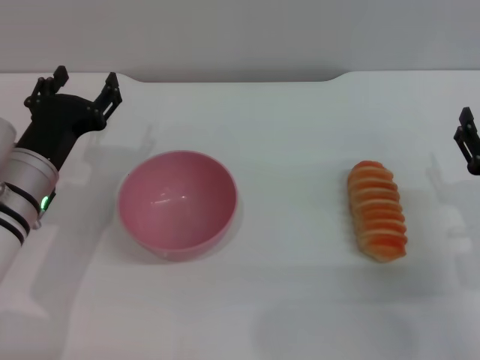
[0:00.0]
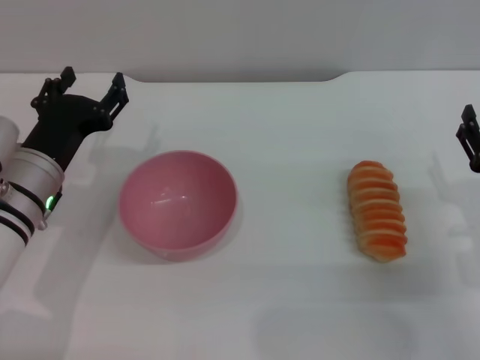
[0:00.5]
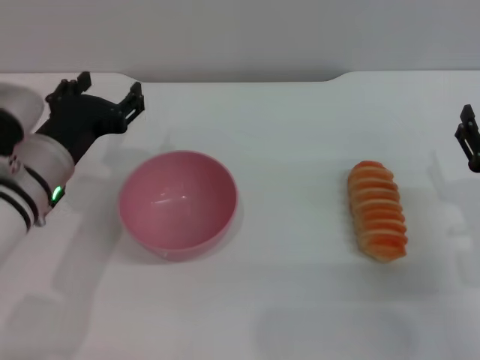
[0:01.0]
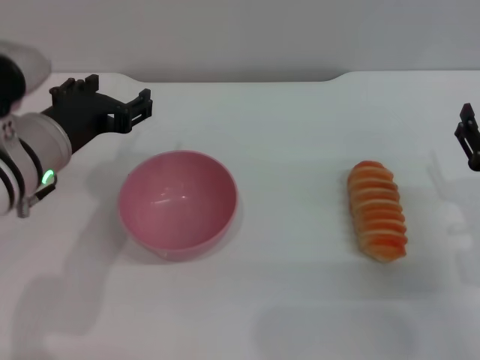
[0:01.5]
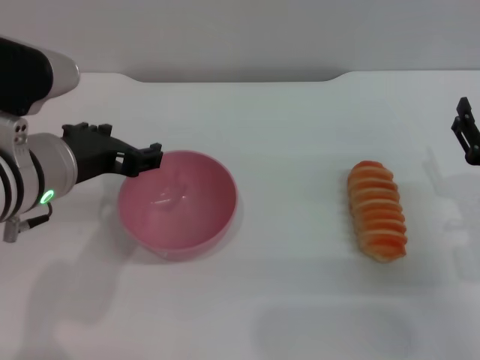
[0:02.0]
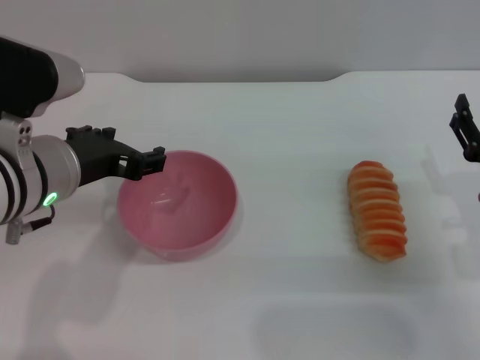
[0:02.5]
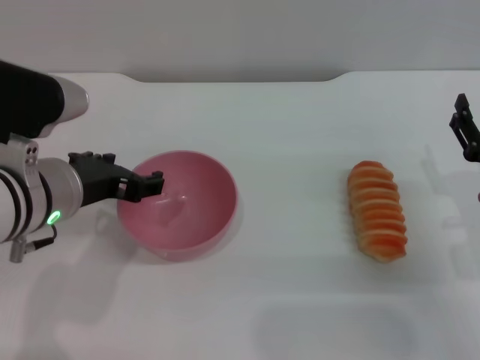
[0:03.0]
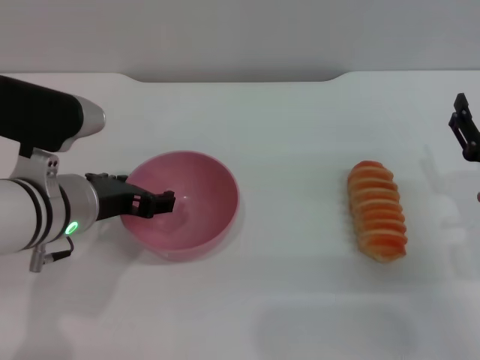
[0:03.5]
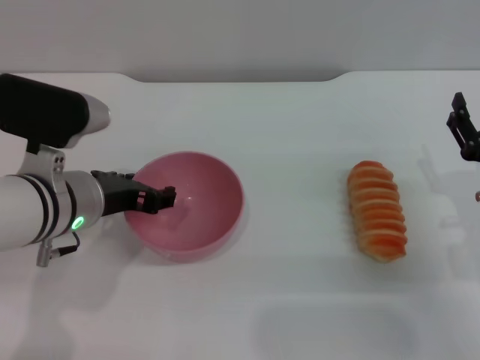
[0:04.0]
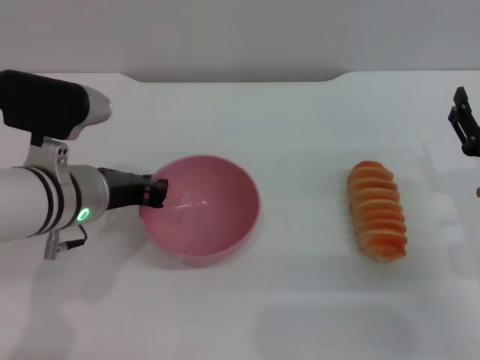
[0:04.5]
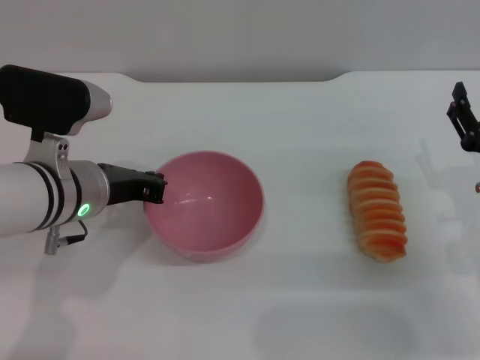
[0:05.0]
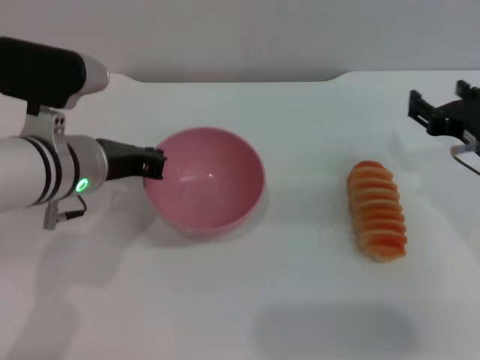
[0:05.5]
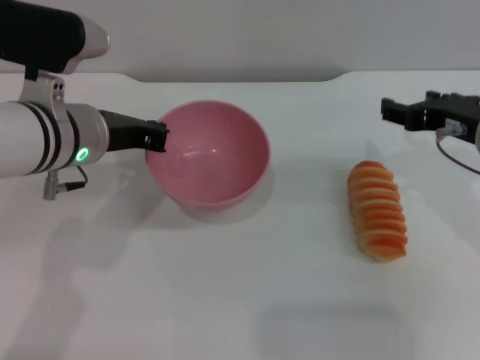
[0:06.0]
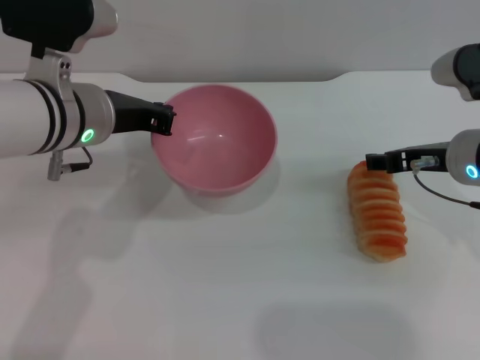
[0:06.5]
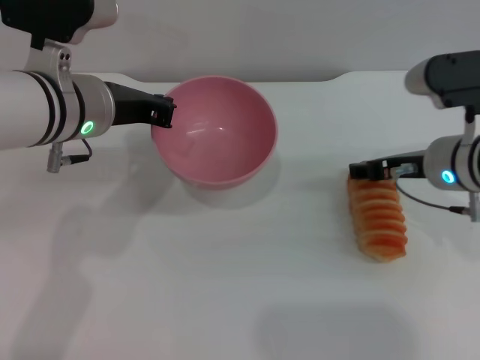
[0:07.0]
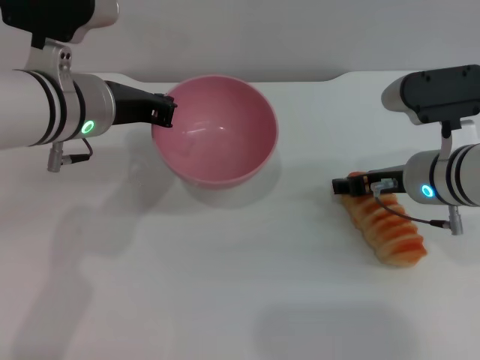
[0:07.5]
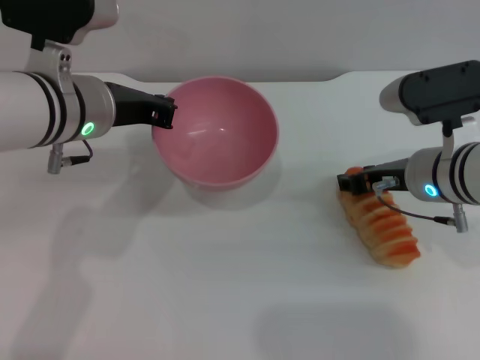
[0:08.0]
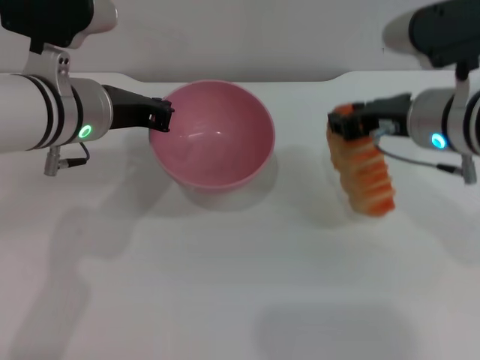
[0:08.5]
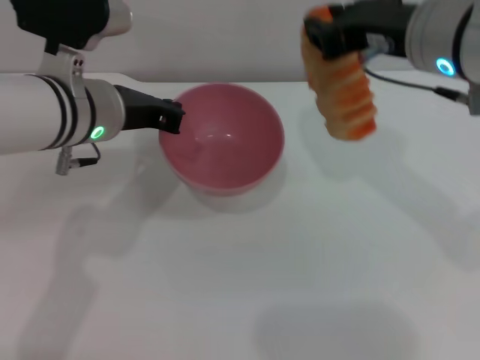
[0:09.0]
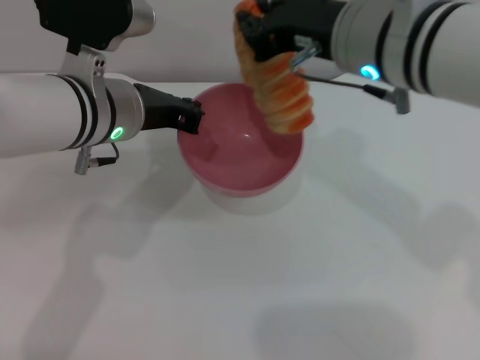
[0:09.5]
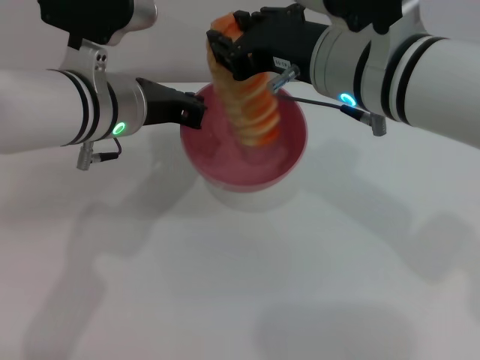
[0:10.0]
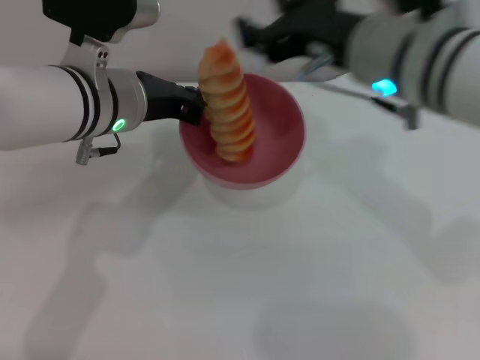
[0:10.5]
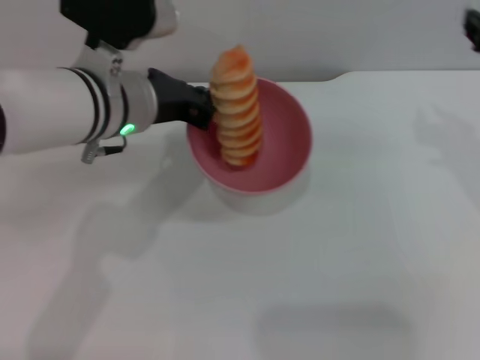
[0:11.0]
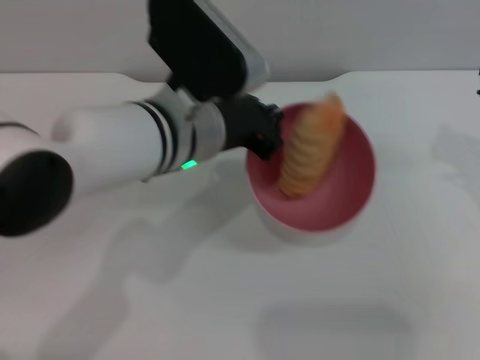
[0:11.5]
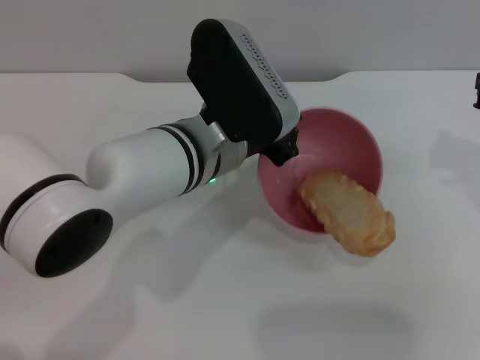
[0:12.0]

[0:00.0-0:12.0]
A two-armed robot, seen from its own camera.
Task of the whole recording: put the bread into the pink bowl and pour it out repeatedly.
Step, 0:00.0 to 0:06.0: Pick up the bowl with the left gripper.
Step, 0:06.5 to 0:08.5: Pick up the bread with the right gripper.
Step, 0:09.0 to 0:11.5: Place the bread into the bowl.
0:00.0 to 0:02.0: The left gripper heads upward, covering roughly 10 cm.
0:02.0 to 0:04.0: The left gripper travels downward by approximately 5 cm.
0:04.0 to 0:06.0: The right gripper moves upward and forward, some 10 cm. Meanwhile the left gripper moves some 5 cm, and closes up.
0:06.0 to 0:08.0: The right gripper travels downward by roughly 5 cm.
0:08.0 to 0:10.0: The right gripper goes roughly 15 cm upward and to the left, and closes up.
0:10.0 to 0:12.0: The right gripper moves to the right, approximately 20 cm, and opens, then closes again. Meanwhile the left gripper moves to the right, approximately 10 cm.

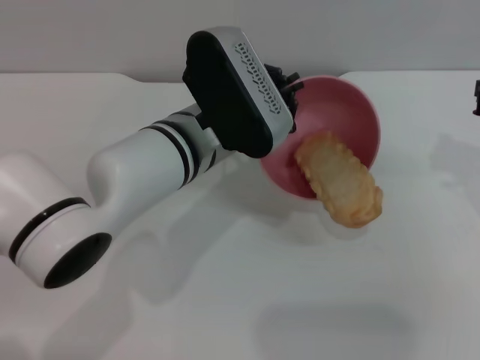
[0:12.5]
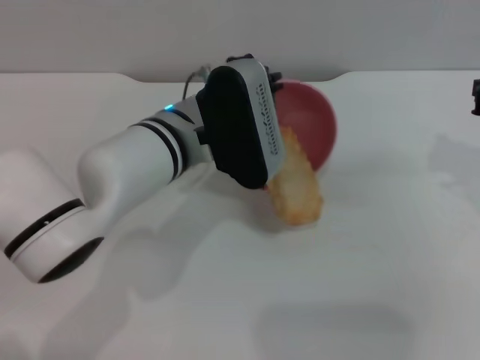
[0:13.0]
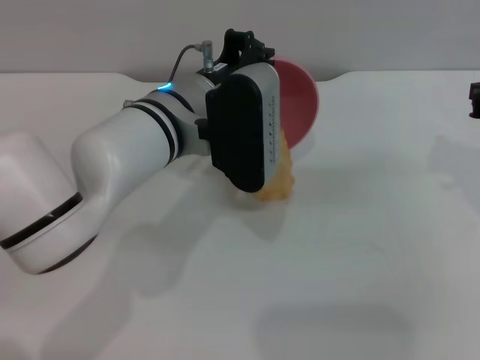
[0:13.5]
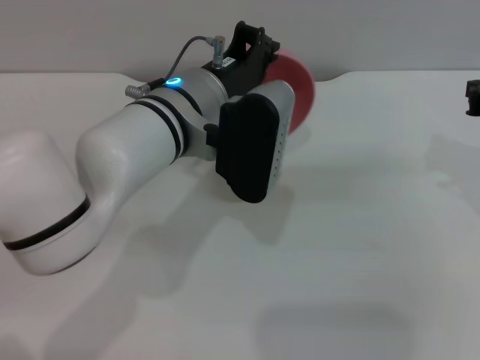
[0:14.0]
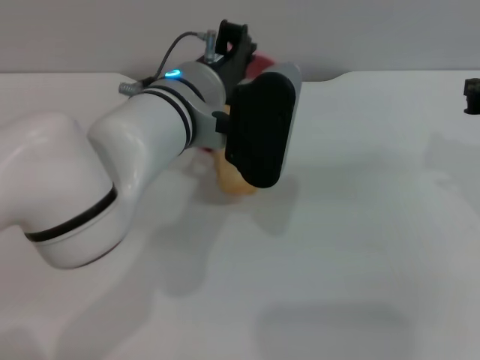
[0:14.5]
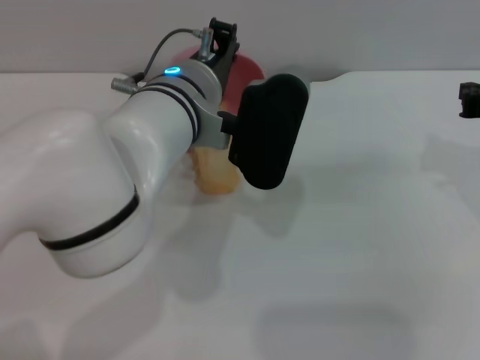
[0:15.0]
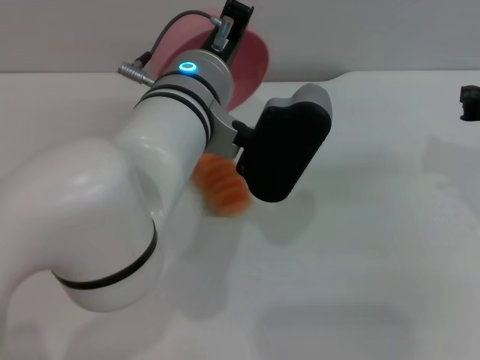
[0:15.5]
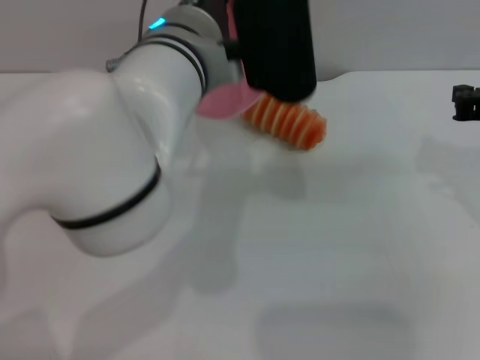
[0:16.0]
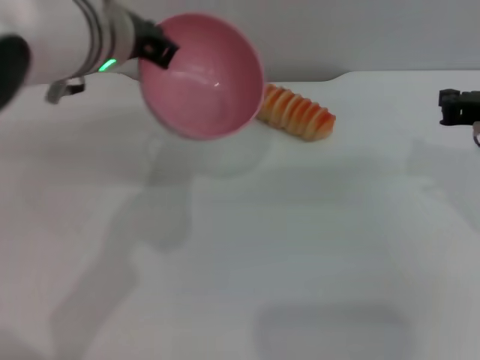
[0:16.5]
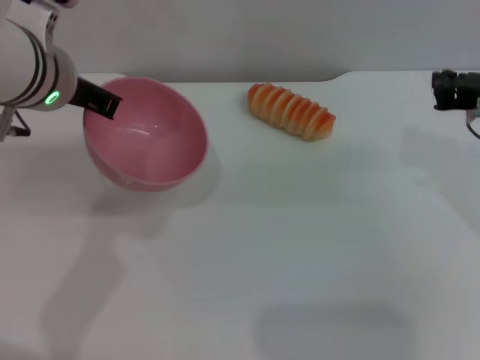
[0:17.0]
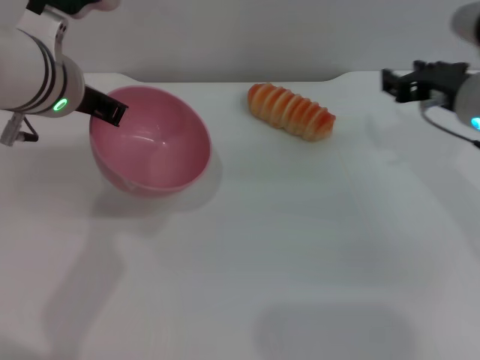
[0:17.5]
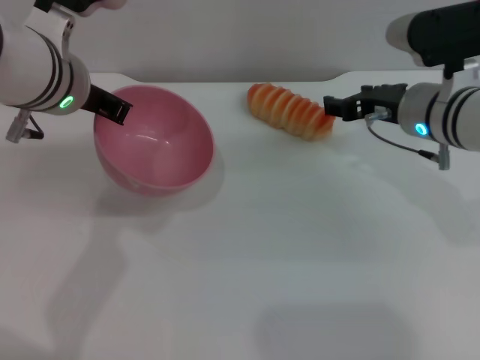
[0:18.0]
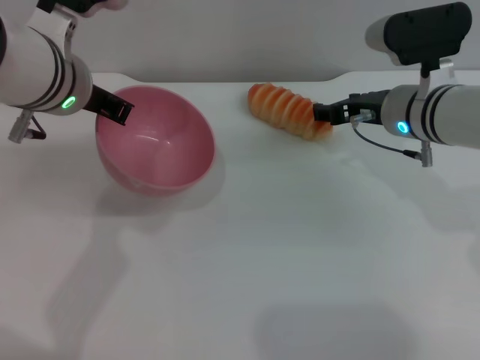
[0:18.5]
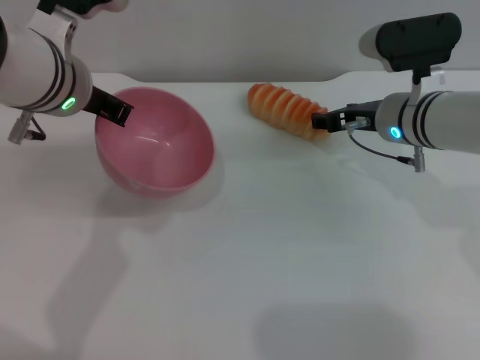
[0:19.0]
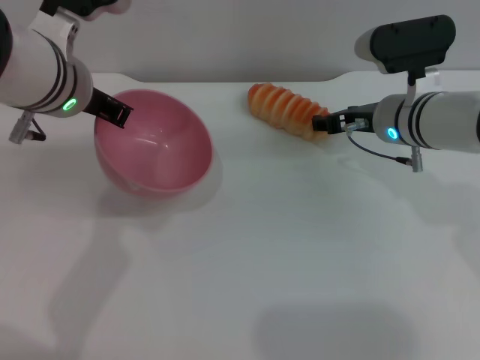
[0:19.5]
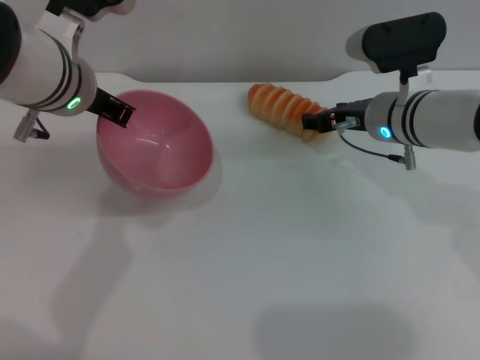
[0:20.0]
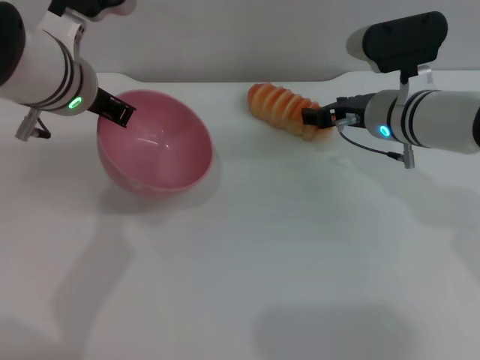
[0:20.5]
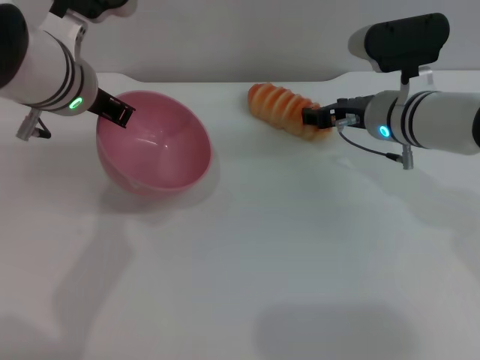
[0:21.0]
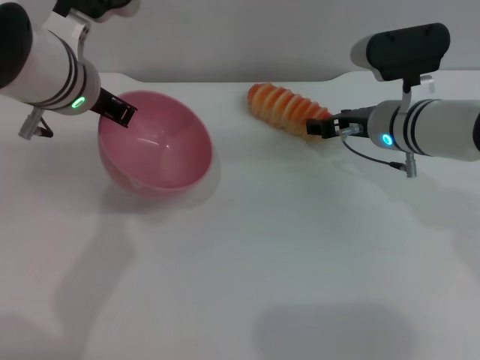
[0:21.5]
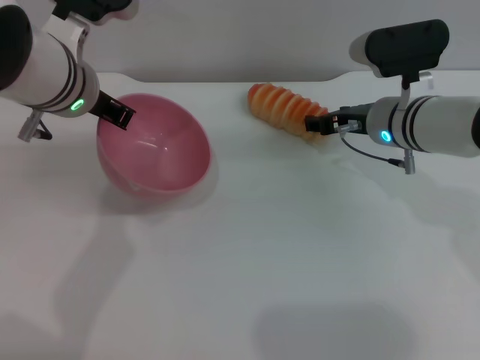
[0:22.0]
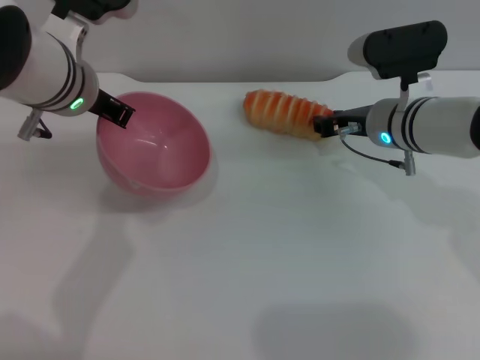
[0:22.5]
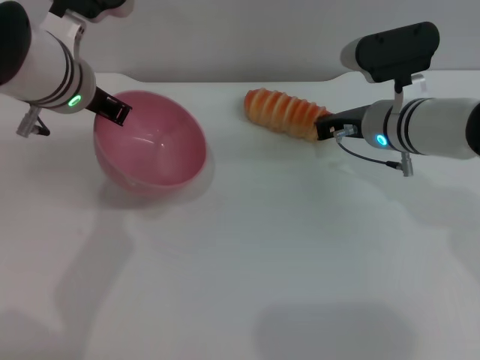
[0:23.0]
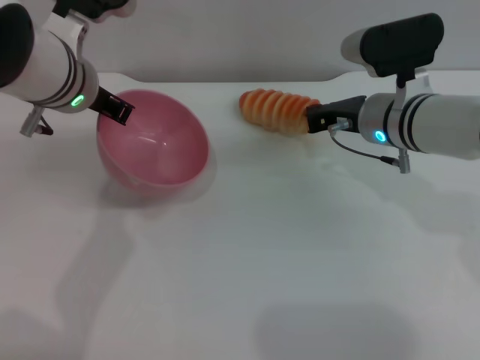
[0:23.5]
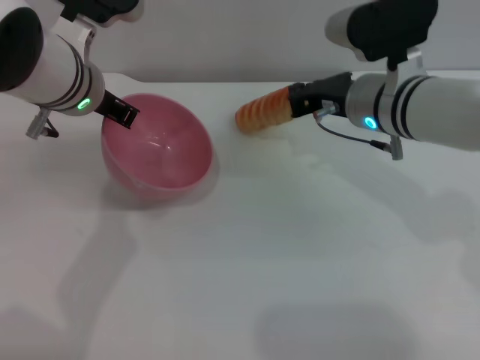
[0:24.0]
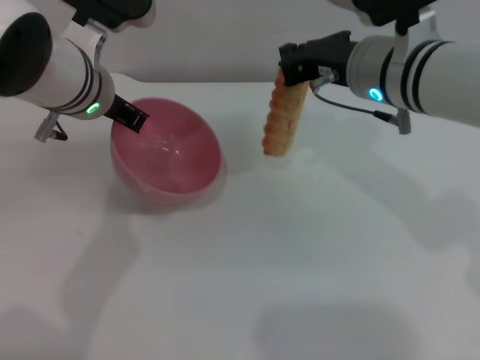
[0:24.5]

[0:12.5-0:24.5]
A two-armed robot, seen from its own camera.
Task of the whole recording: put the bread into the pink bowl and pour it out repeatedly.
Step, 0:12.5 to 0:16.5: Pour the bread out of the bowl.
0:14.5 to 0:16.5: The left gripper goes approximately 10 cm upward and to the left.
0:16.5 to 0:18.5: The right gripper goes approximately 15 cm forward, to the left and downward, and opens.
0:18.5 to 0:20.5: The grippers stay close to where they were, moving slightly.
0:20.5 to 0:22.5: The two grippers keep their place.
0:22.5 to 0:24.5: The right gripper moves upward, approximately 10 cm, and closes up.

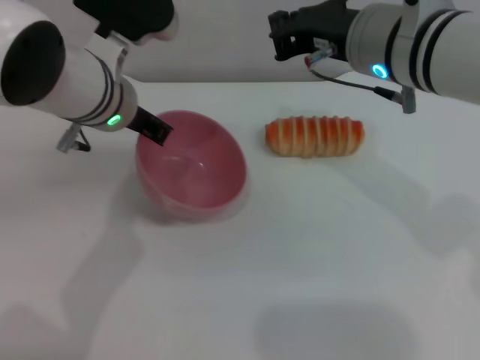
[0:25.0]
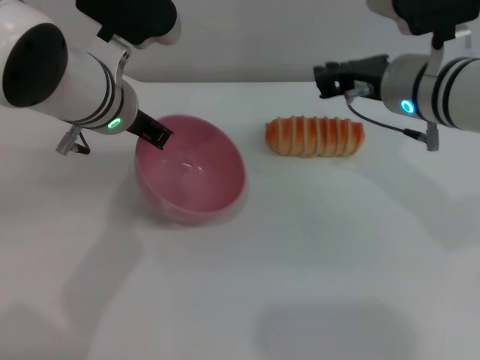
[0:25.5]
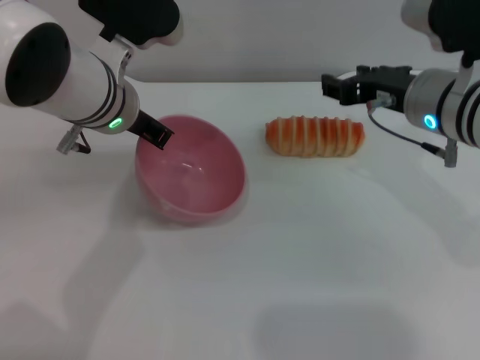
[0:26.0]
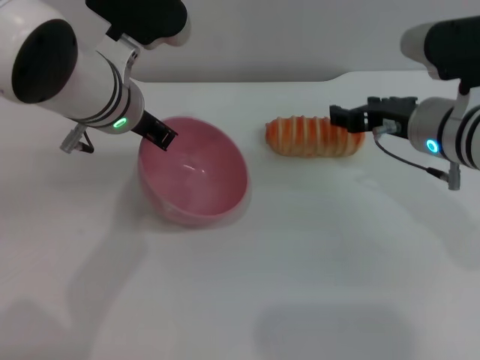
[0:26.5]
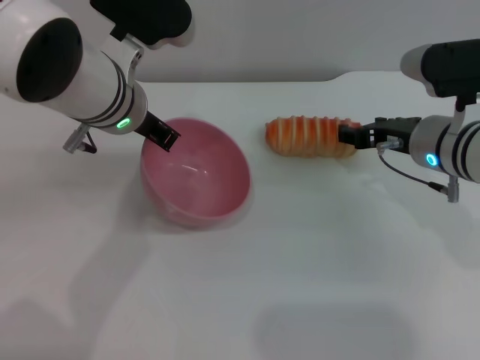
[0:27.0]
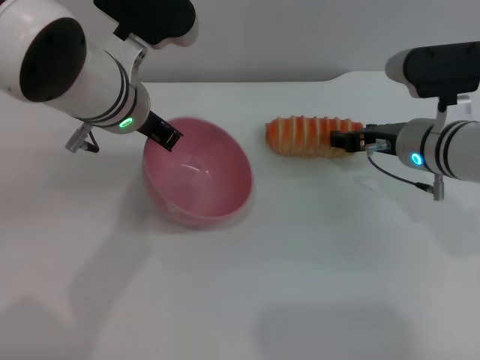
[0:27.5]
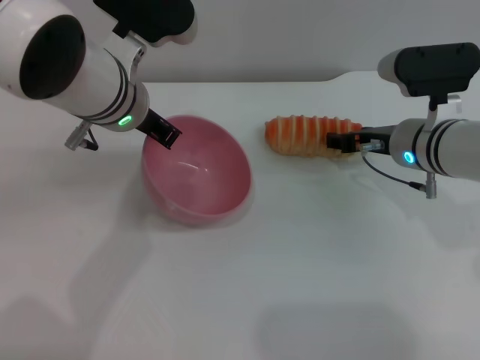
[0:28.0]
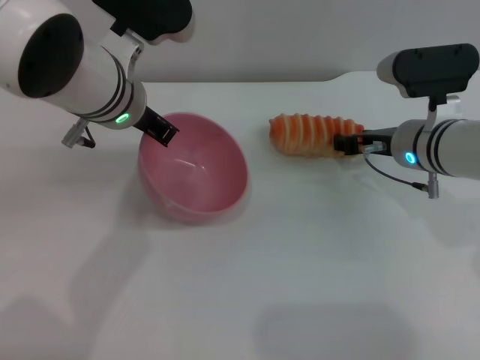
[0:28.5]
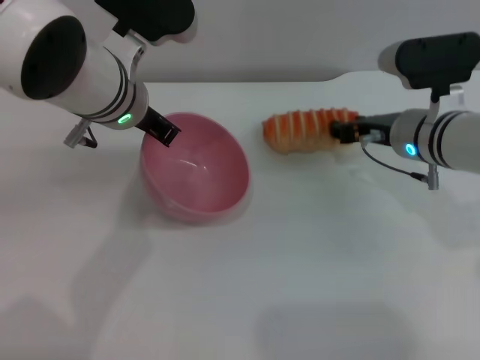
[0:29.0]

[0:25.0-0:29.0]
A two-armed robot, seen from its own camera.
Task of the whole recording: put the bread into the pink bowl and pour it out repeatedly.
0:25.0 to 0:27.0: The right gripper shifts roughly 15 cm downward and to the right, and opens its fingers.
0:27.0 to 0:29.0: The grippers move only a little.
